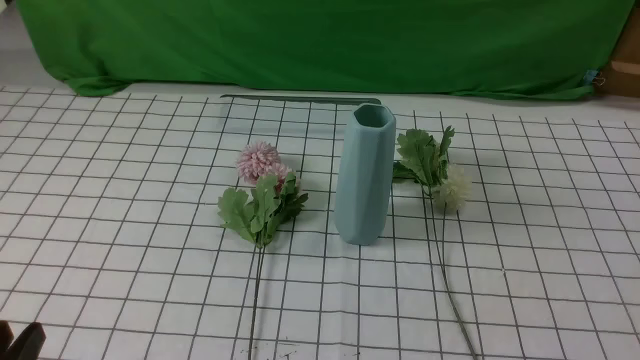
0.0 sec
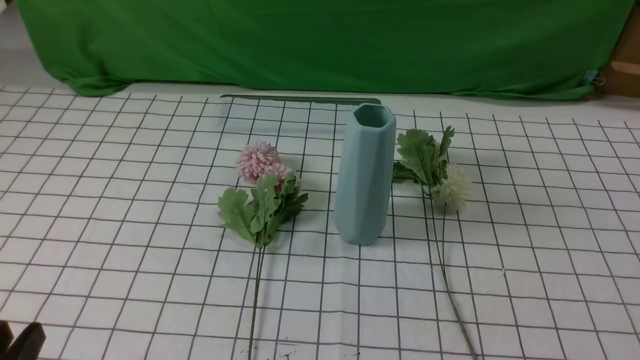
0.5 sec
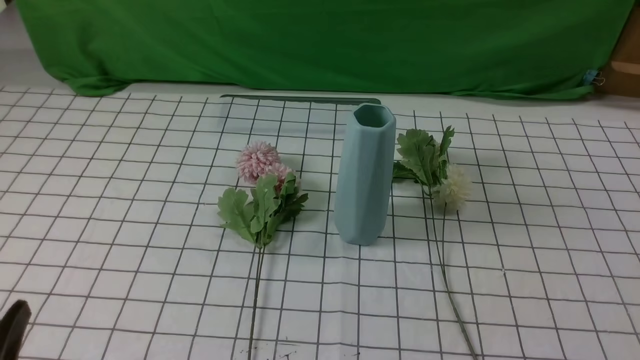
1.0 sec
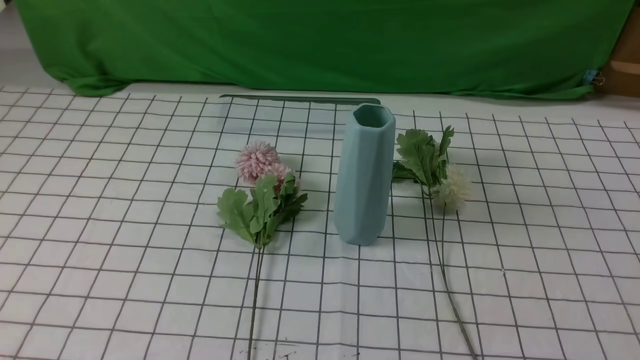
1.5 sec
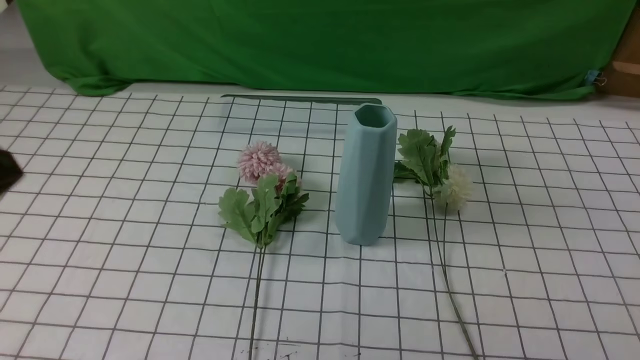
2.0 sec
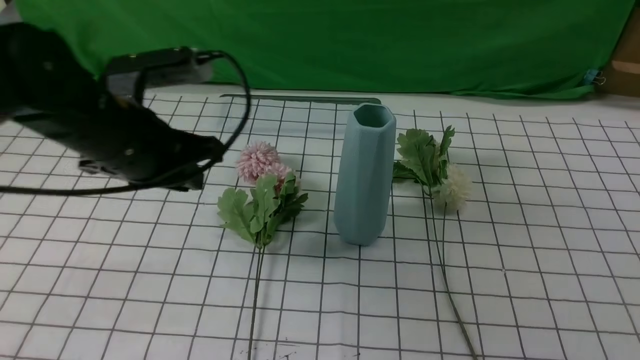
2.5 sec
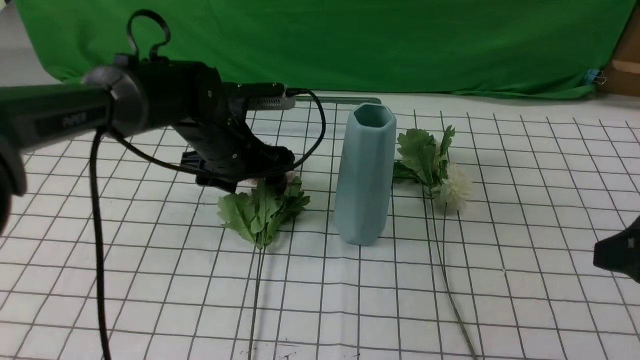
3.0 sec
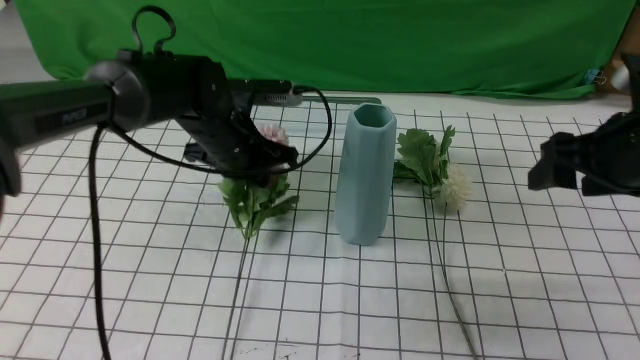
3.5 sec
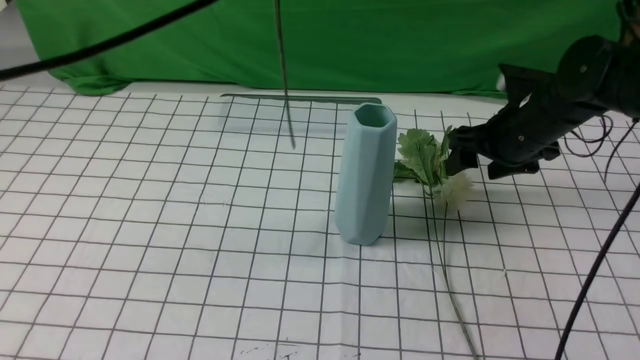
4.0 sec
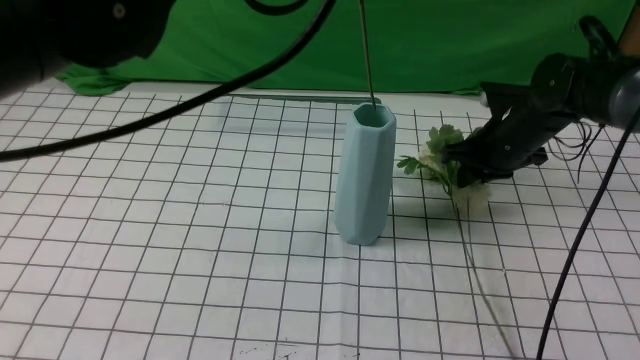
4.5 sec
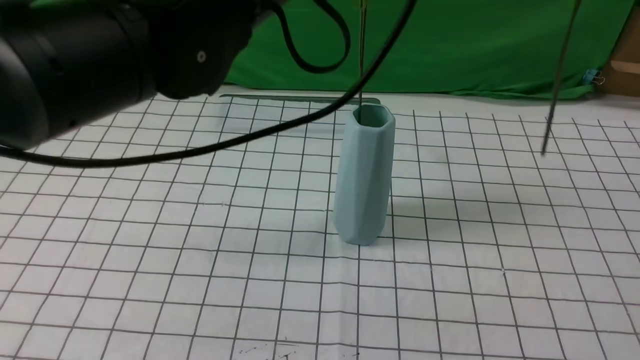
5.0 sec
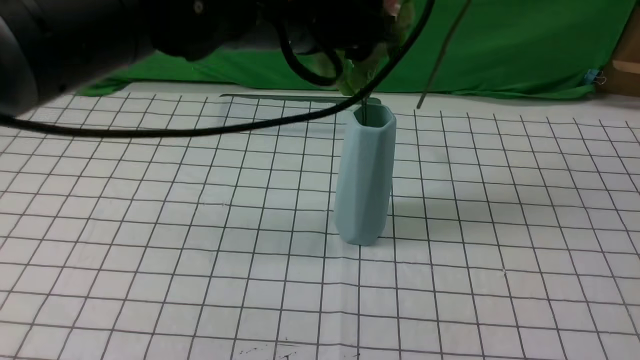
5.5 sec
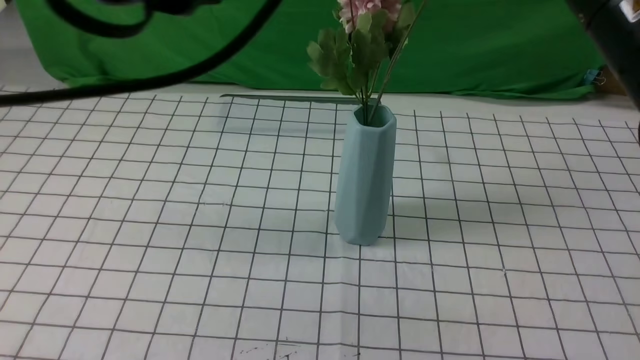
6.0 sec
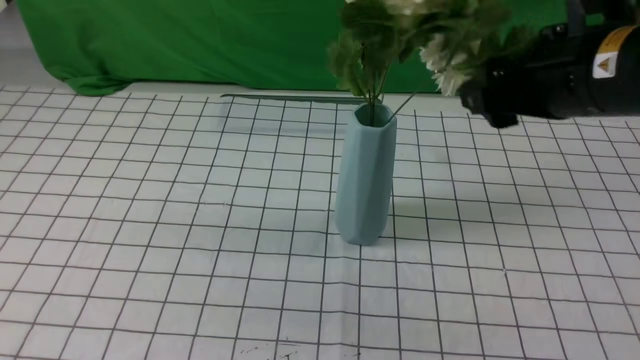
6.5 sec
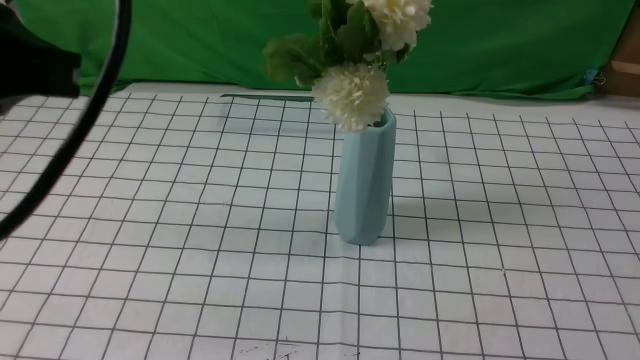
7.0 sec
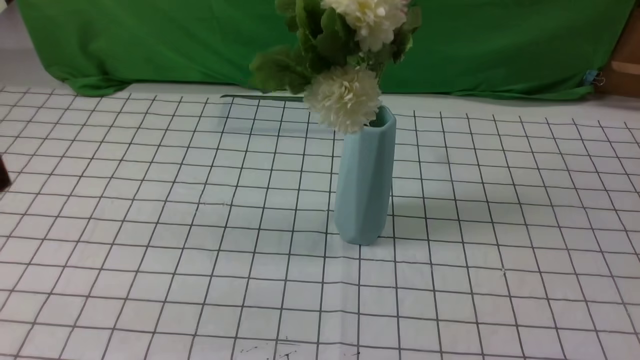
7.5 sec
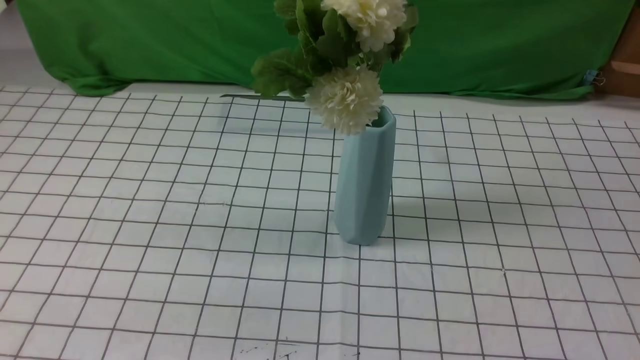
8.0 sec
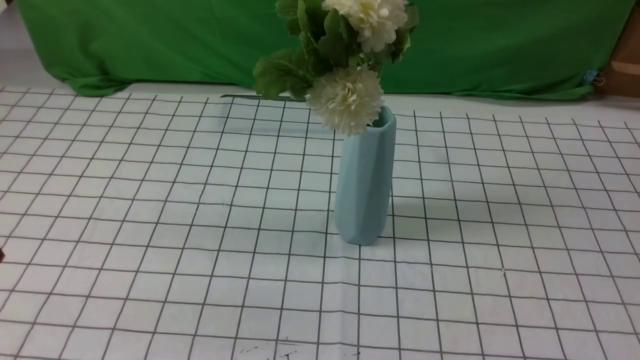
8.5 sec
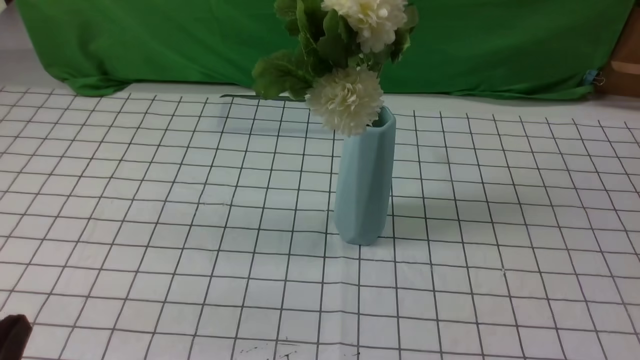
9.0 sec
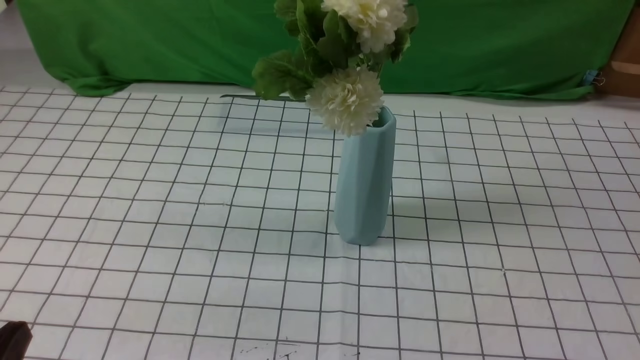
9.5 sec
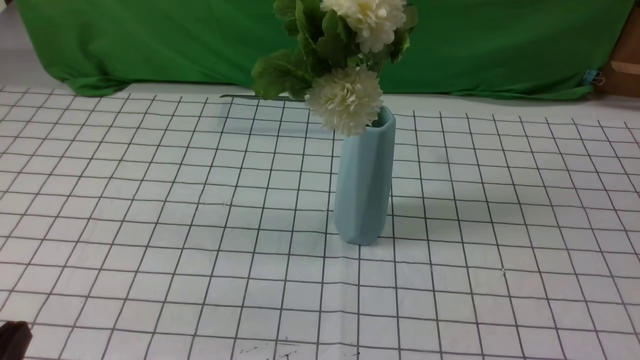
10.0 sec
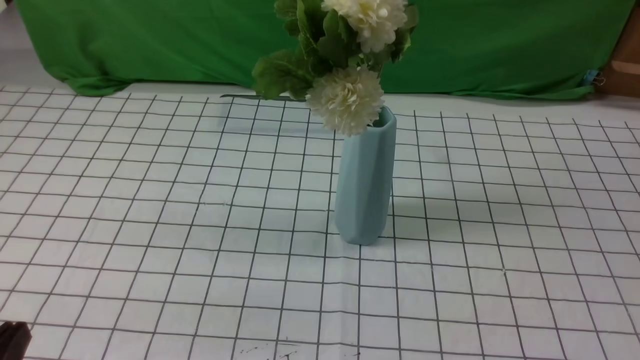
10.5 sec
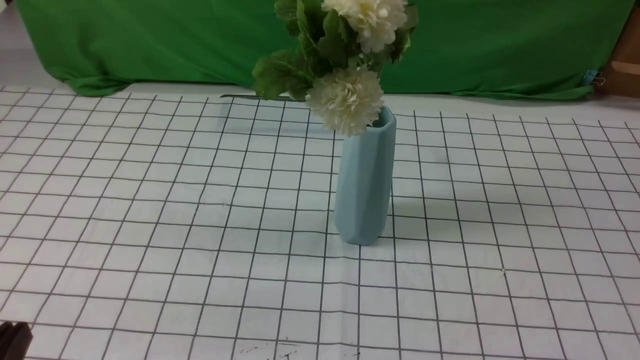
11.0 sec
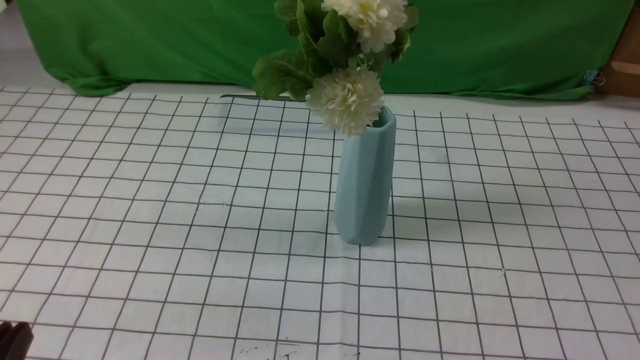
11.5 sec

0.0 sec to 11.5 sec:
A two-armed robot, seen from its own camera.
Task of the whole recording: insert the flowers into the vase on the table with the white tablecloth.
Step, 0.0 sec to 6.5 sec: Put the flowers in the vase with both hands.
0.0 sec to 2.0 sec: The left gripper shifts roughly 20 cm upward and forward, and closes up.
2.0 sec to 4.0 sec: The right gripper shifts roughly 35 cm forward, and opens; the left gripper is displaced forward, to the right and upward by roughly 25 cm, and opens, then closes again.
4.0 sec to 6.0 sec: The left gripper shifts roughly 10 cm backward, and opens up; the right gripper travels upward and backward by about 25 cm, and closes.
6.0 sec to 7.5 sec: The right gripper travels backward and to the right by some 30 cm, and opens, then closes again; the left gripper heads backward, to the left and downward, covering roughly 20 cm, and closes up.
7.5 sec to 9.5 sec: The left gripper heads downward, covering roughly 20 cm.
